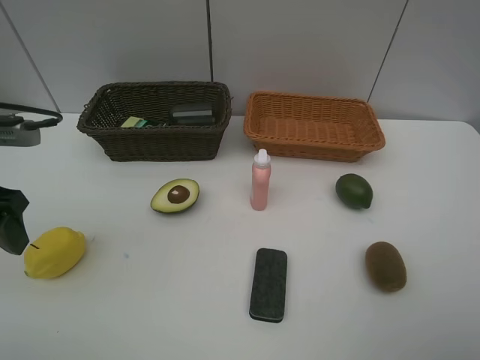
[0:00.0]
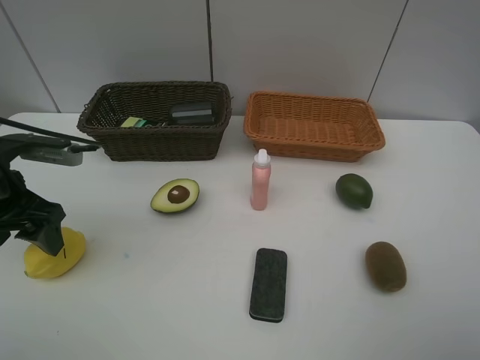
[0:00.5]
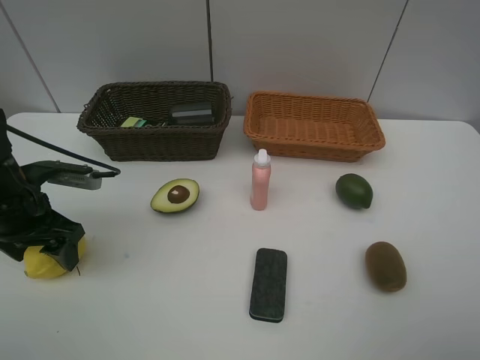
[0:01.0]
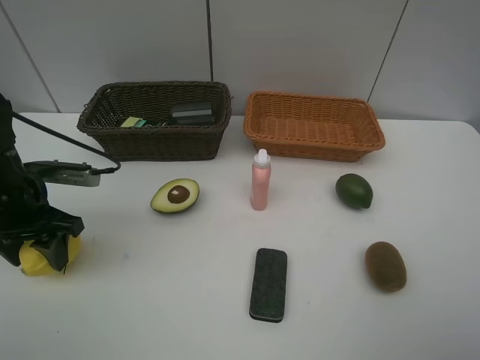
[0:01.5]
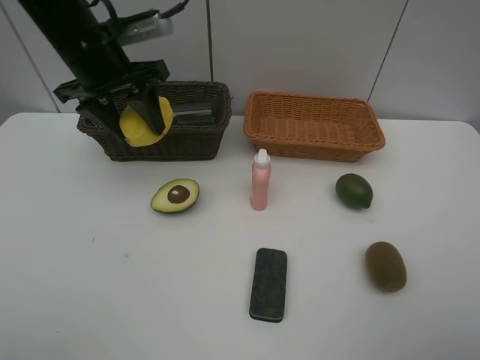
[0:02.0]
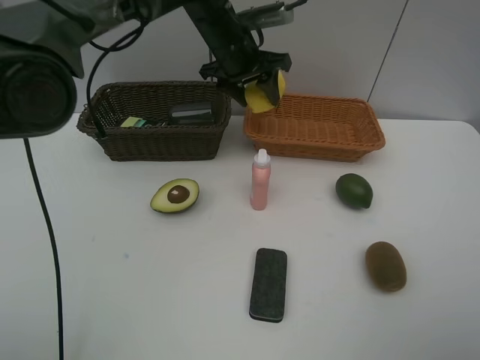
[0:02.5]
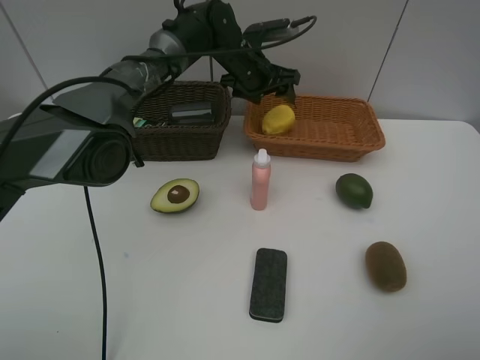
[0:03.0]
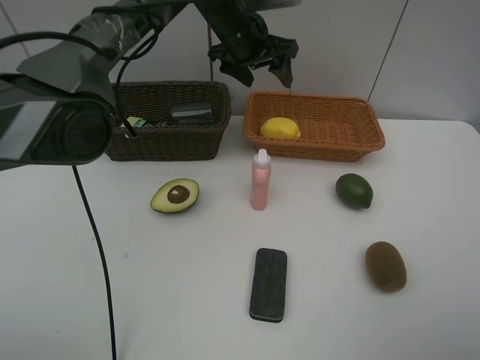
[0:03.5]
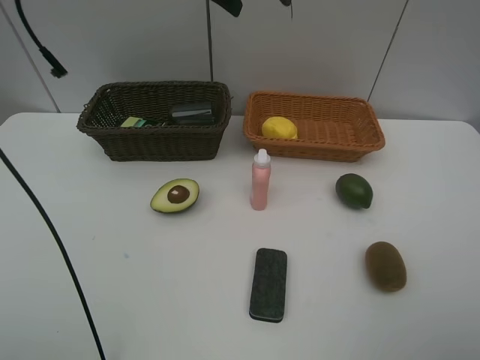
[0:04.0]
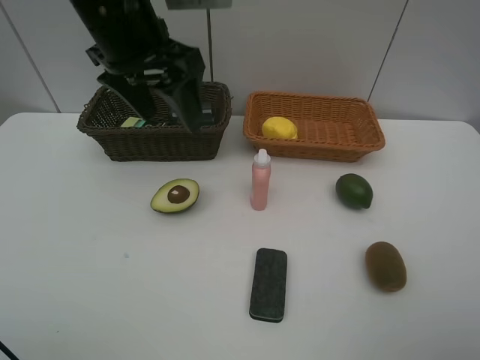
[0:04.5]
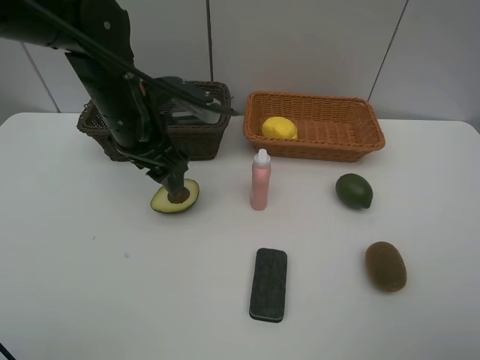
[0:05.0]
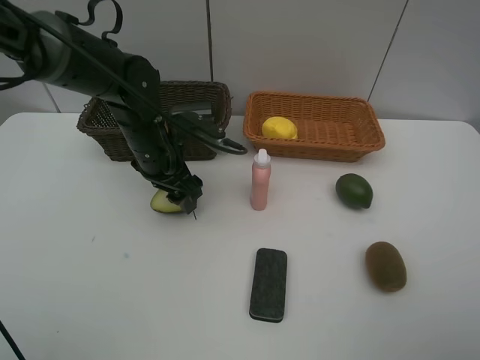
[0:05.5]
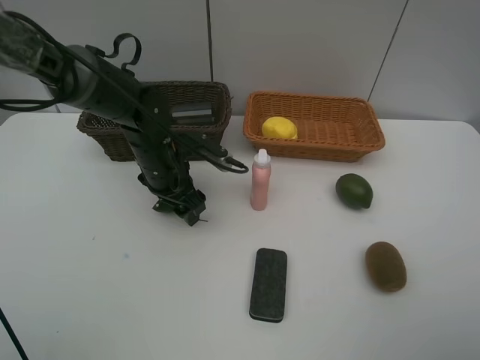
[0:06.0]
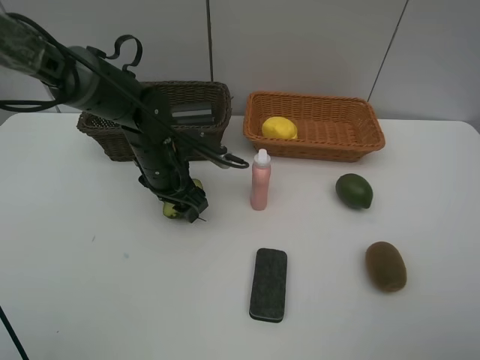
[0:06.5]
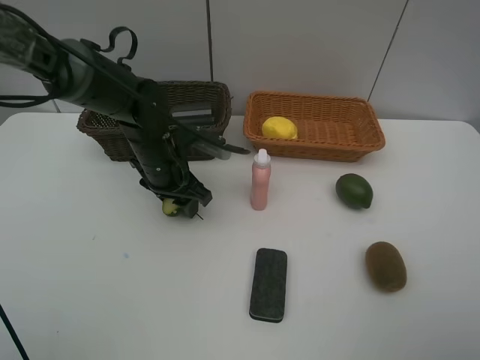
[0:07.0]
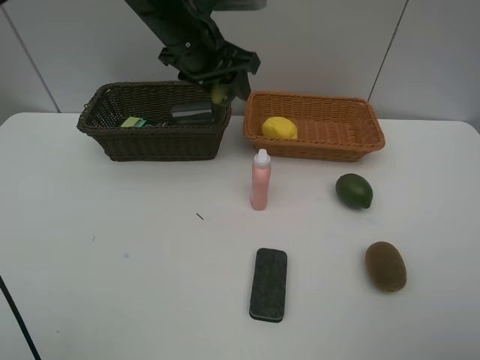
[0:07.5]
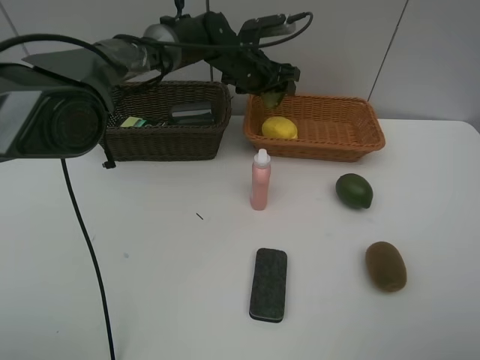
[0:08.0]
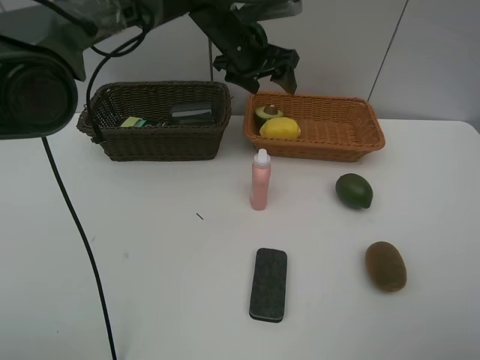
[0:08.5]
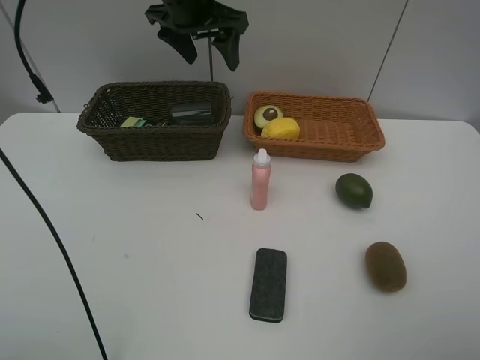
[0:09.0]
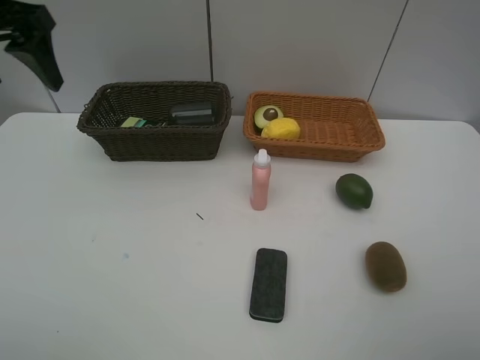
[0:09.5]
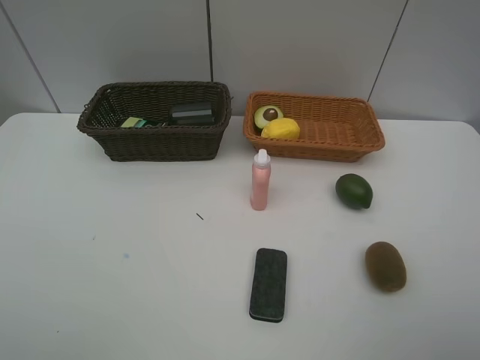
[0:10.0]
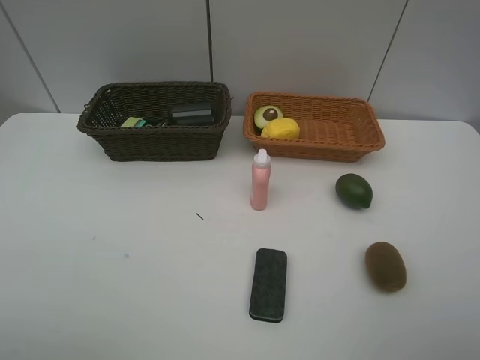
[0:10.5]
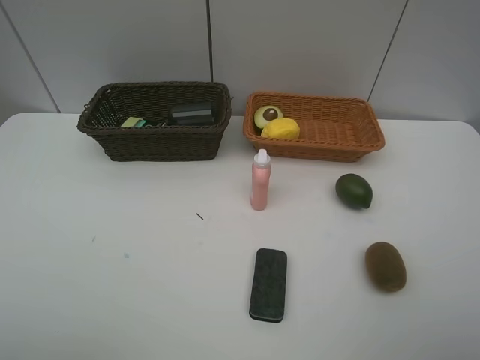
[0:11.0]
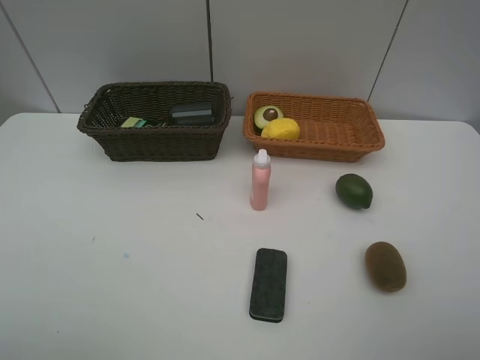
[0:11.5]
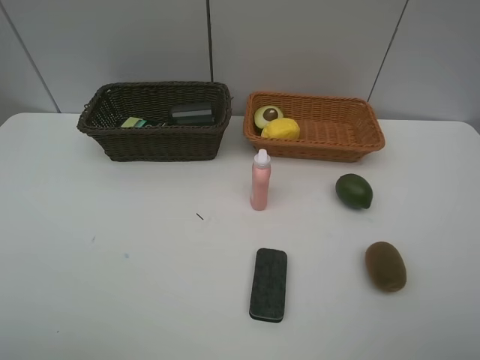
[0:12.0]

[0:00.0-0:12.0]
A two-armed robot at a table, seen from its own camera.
Task of the whole recording: Place multiple objects separately in different baskets.
Step, 0:02.0 to 0:03.0: Place the lemon in the light basket with left gripper.
Step, 0:03.5 to 0:07.0: Pick up the avocado with left gripper.
Step, 0:07.5 to 0:08.0: Place the avocado in the light basket with left gripper.
0:00.0 to 0:02.0: The left gripper is displaced forward and to the right by approximately 20 cm, and closes.
0:02.0 to 0:04.0: The left gripper moves to the right and upward, some 15 cm, and opens up.
0:04.0 to 0:06.0: The left gripper heads downward, covering roughly 30 cm.
0:06.0 to 0:08.0: The left gripper is displaced forward, to the right and upward by about 20 cm, and closes, then reopens.
0:08.0 to 0:10.0: The left gripper moves backward, to the left and upward, approximately 50 cm.

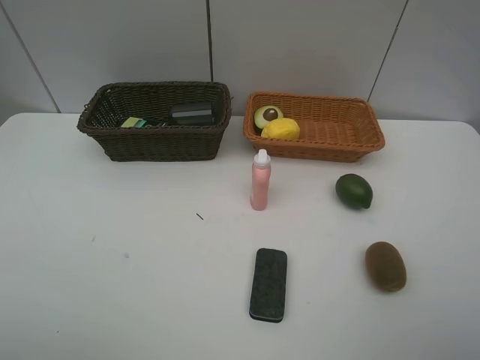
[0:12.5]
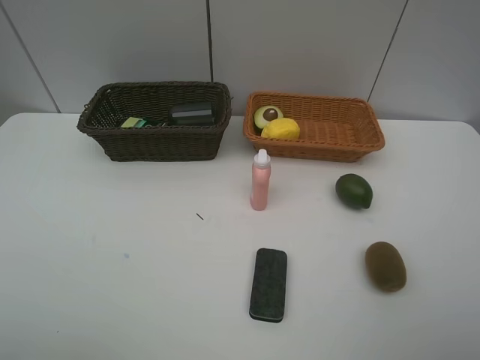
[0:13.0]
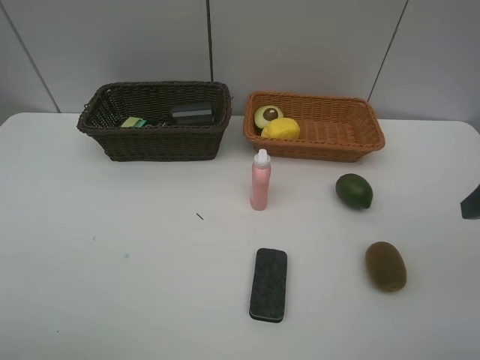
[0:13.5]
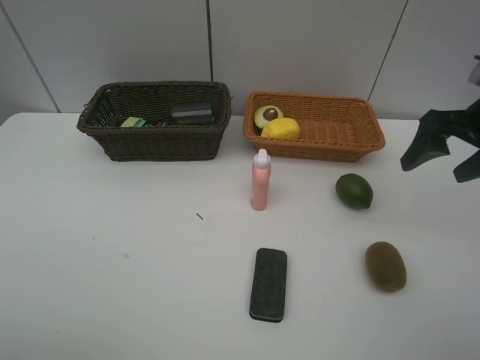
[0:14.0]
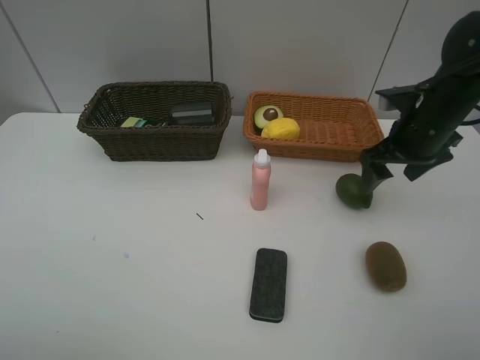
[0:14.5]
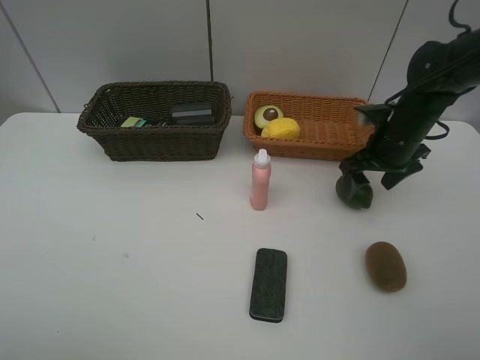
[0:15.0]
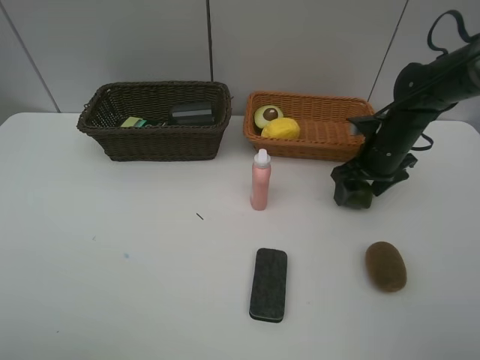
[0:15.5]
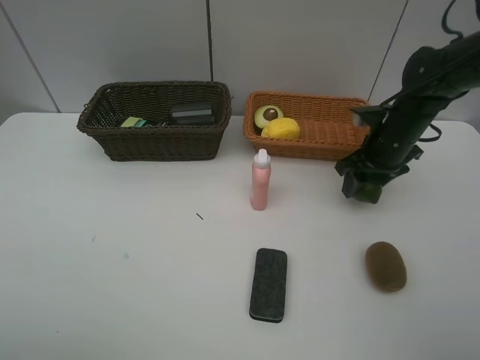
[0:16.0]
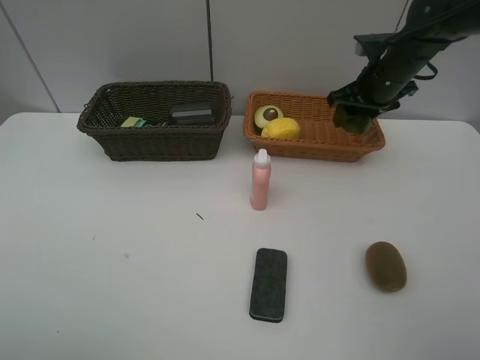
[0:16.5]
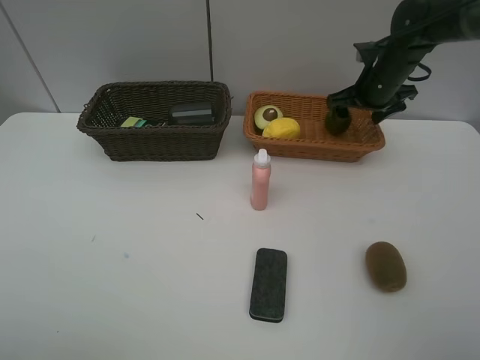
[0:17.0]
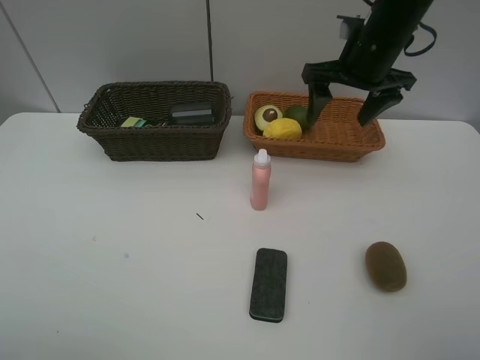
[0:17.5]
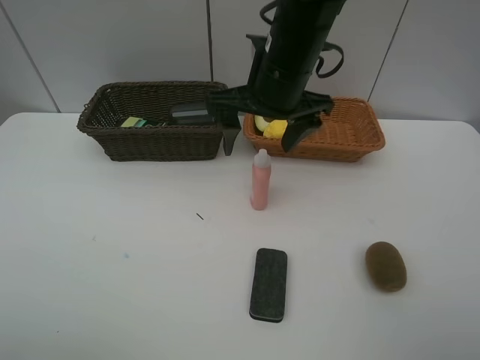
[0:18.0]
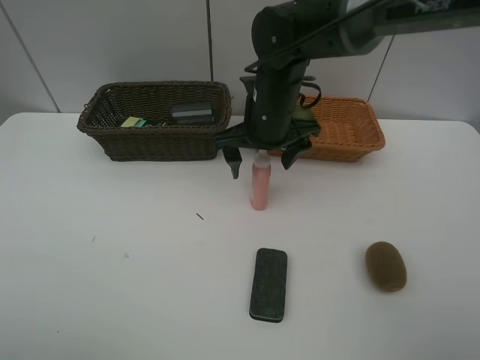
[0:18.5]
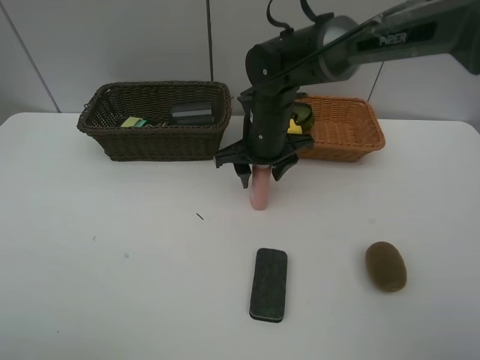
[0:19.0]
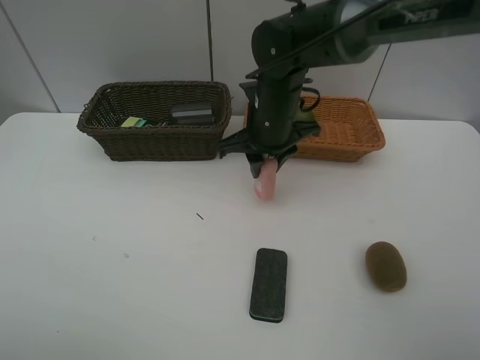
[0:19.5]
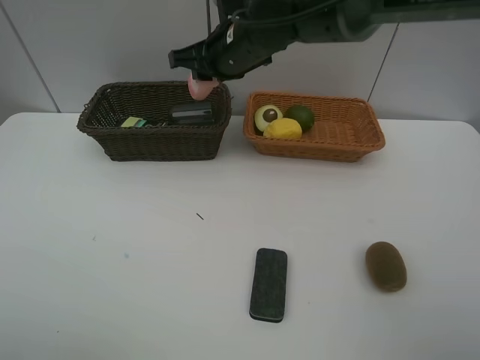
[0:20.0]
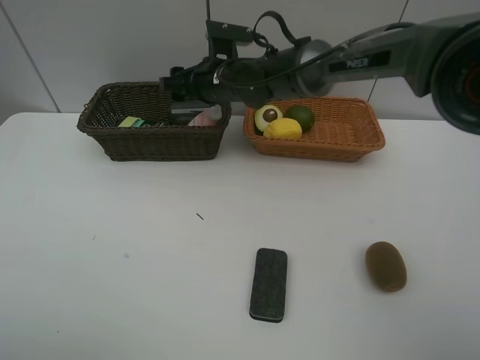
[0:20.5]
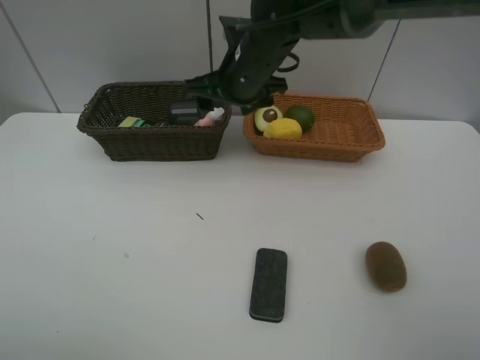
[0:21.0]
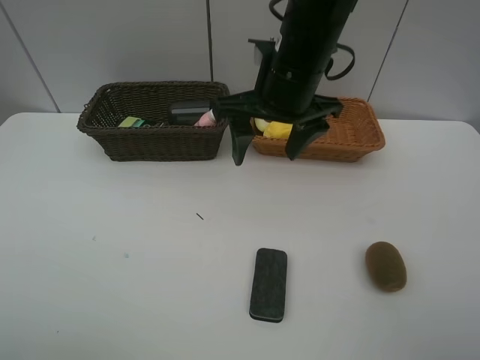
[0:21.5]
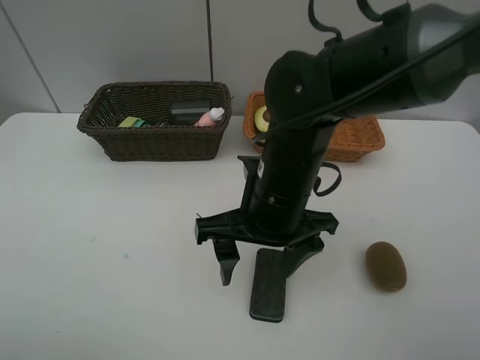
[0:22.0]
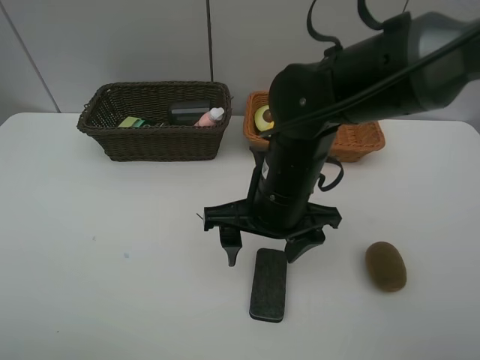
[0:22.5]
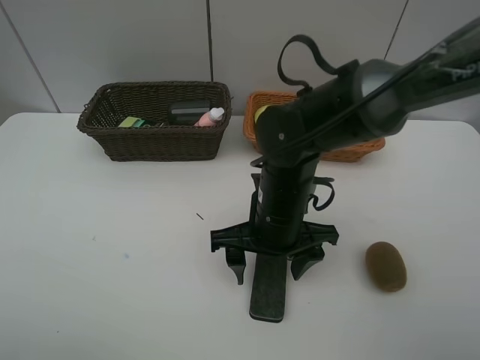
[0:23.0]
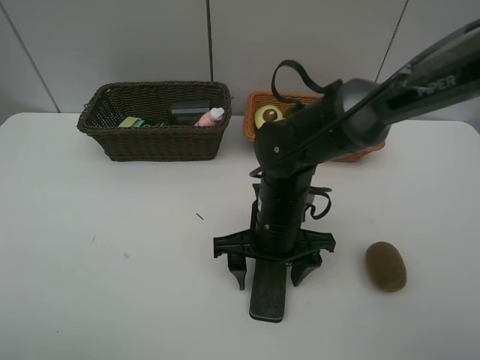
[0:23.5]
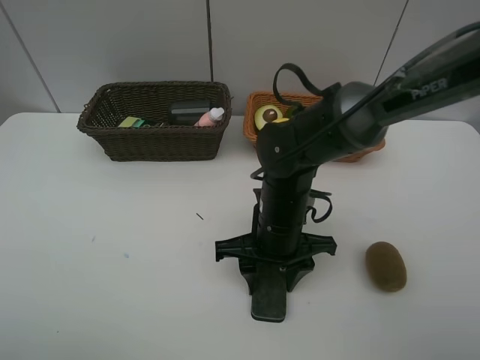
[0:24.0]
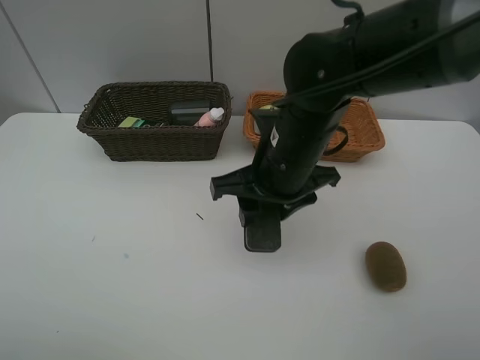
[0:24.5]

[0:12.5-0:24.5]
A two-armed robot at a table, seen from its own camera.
Task of the whole recording: Place multiple objects separately in different baskets.
Step, 0:12.5 to 0:16.0: Pick up the lime with right gripper.
Step, 0:16.5 to 0:17.0: Place the lime in the light basket with right gripper.
Step, 0:17.5 to 0:19.5: Pick up the laundry detergent with right gripper.
Step, 0:20.0 to 0:20.5: Place the laundry detergent in the dark basket with right gripper.
Step, 0:21.0 to 0:24.0: Pick up blackboard eraser with right gripper.
0:12.5 to 0:14.5: The right gripper is displaced forward by approximately 35 cm.
0:14.5 to 0:16.5: The right gripper heads forward, covering roughly 10 cm, and closes its fingers.
0:16.5 to 0:18.5: The right gripper travels to the left and backward by some 20 cm, and opens.
0:18.5 to 0:20.5: The right gripper moves forward and to the left, roughly 10 cm, goes upward and returns, about 5 cm each way, and closes, then reopens.
0:20.5 to 0:22.5: The right gripper is displaced backward by roughly 20 cm.
0:22.5 to 0:24.5: The right gripper moves some 5 cm downward and comes back, and closes up.

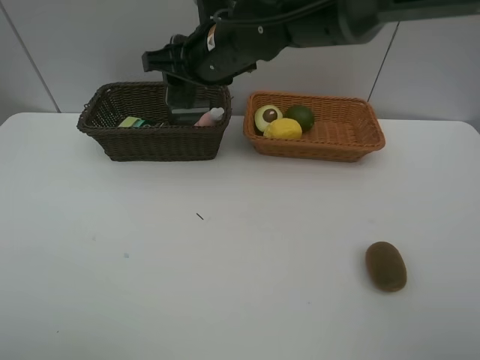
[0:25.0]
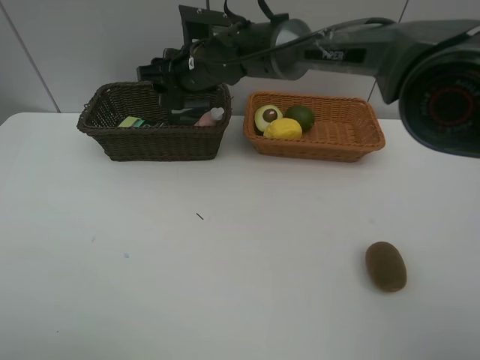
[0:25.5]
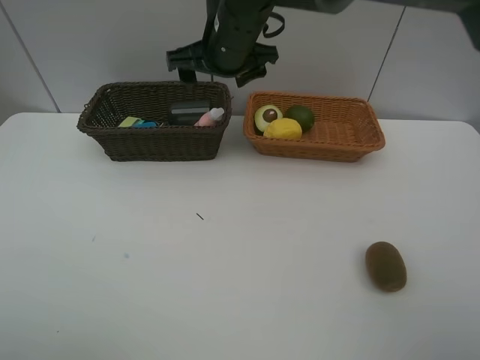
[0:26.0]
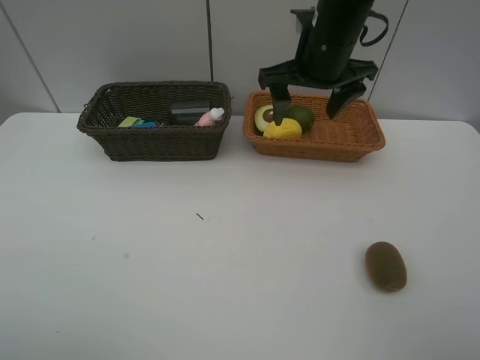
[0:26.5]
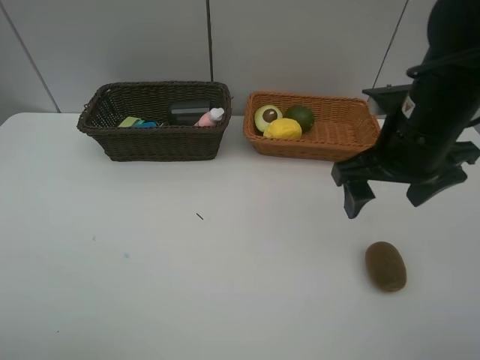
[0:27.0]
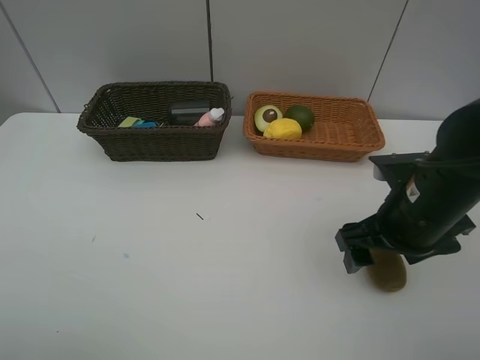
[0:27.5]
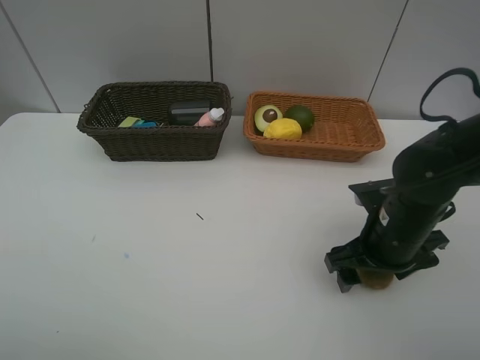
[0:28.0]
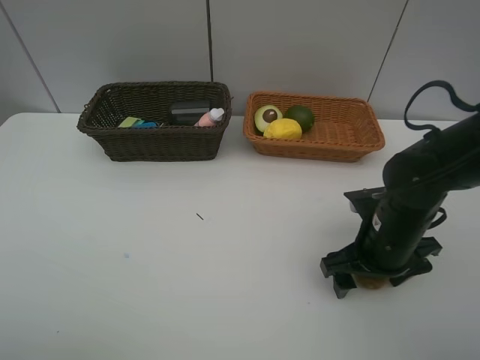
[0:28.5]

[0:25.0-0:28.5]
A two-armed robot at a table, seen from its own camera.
Task of the whole recording: Place multiple objects separately in different baskets.
0:25.0 to 0:27.0: The right gripper heads to the right and backward, covering some 25 cm, and opens.
0:27.0 to 0:28.5: The right gripper travels downward by roughly 15 cm.
